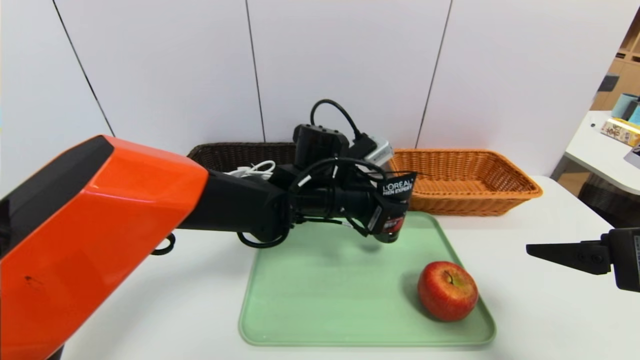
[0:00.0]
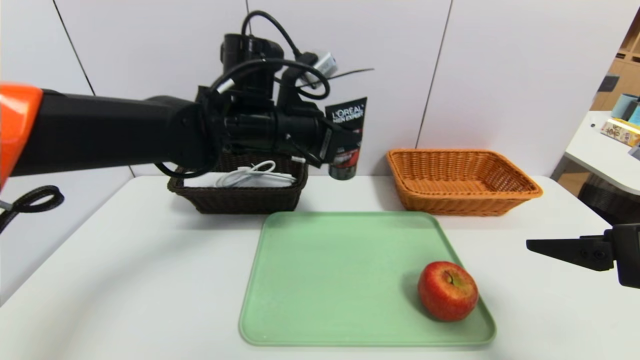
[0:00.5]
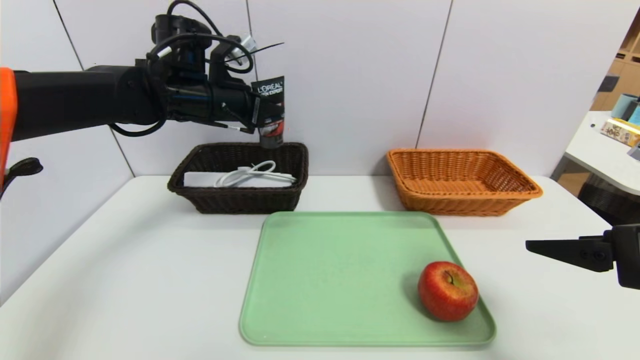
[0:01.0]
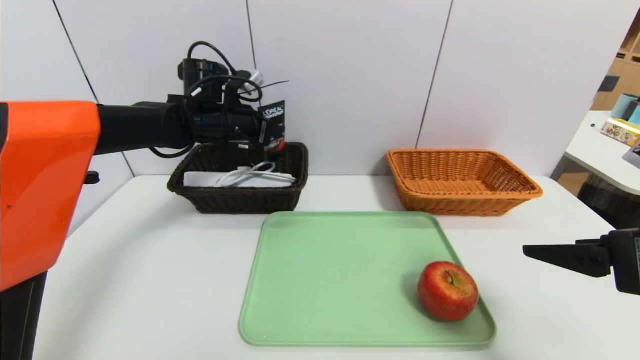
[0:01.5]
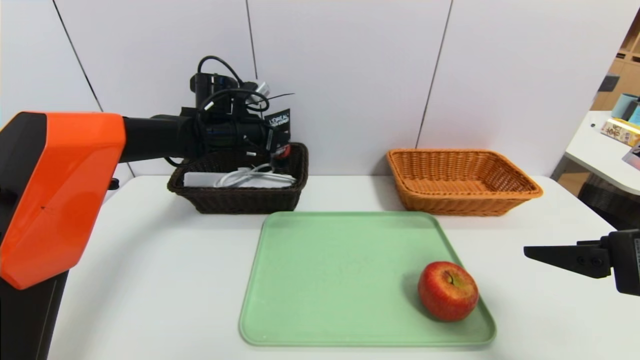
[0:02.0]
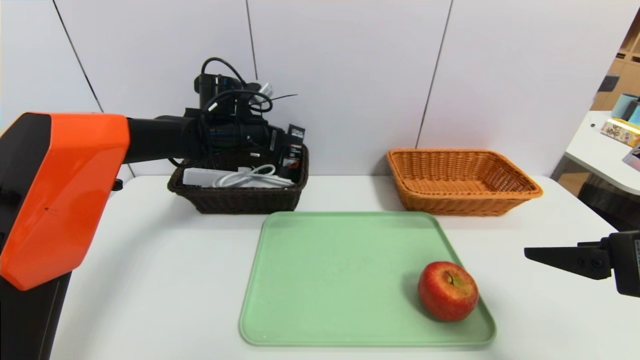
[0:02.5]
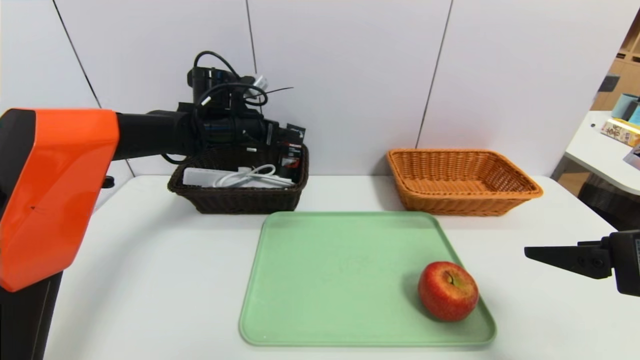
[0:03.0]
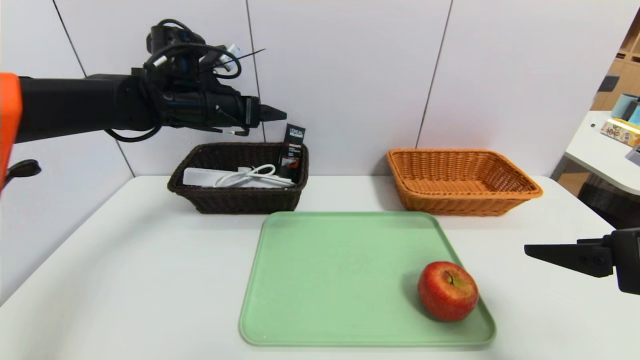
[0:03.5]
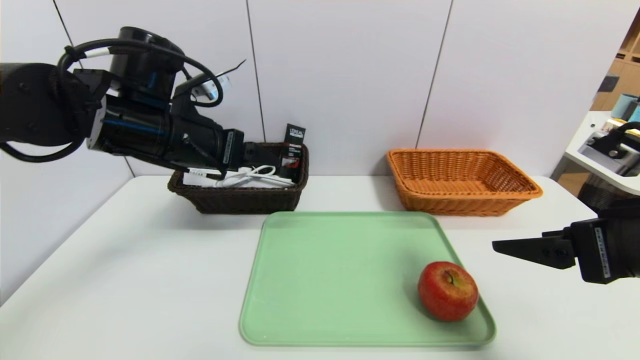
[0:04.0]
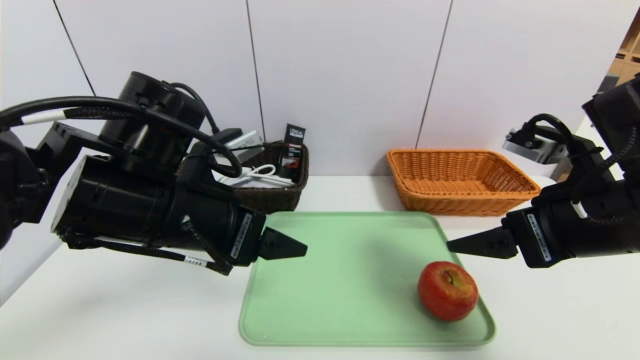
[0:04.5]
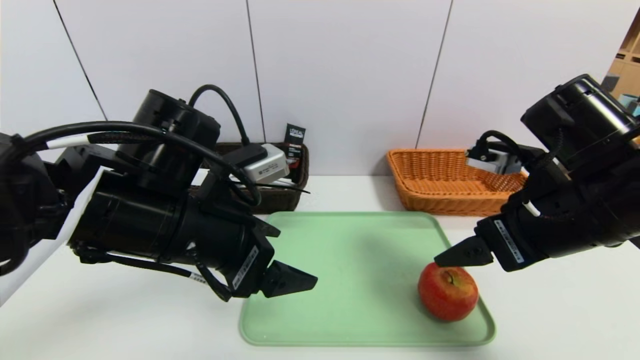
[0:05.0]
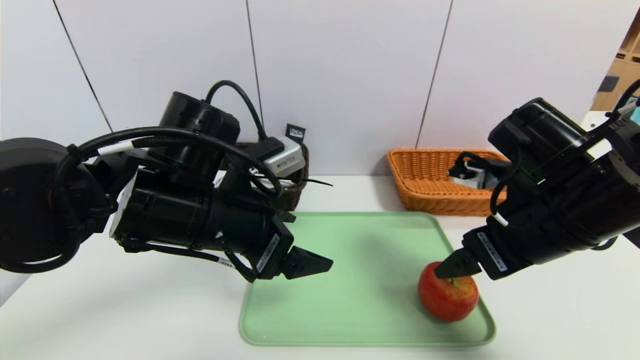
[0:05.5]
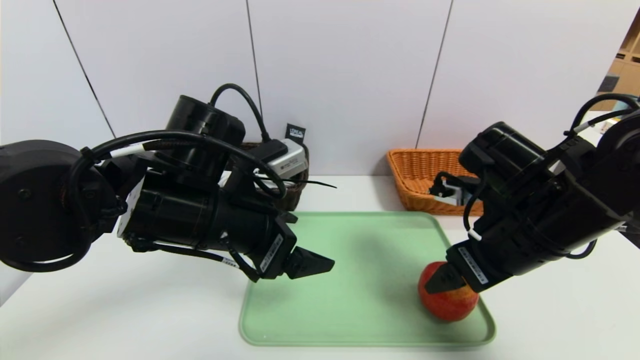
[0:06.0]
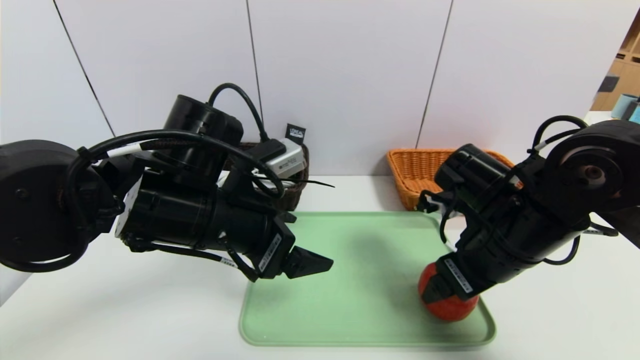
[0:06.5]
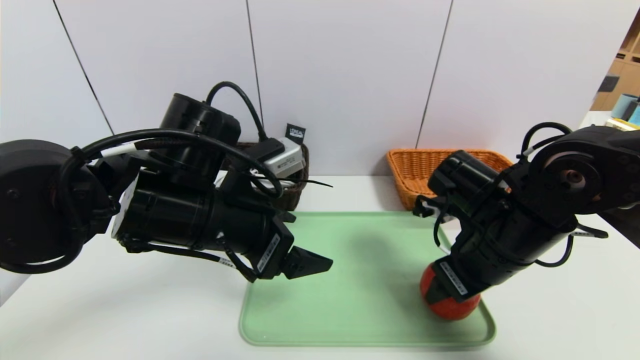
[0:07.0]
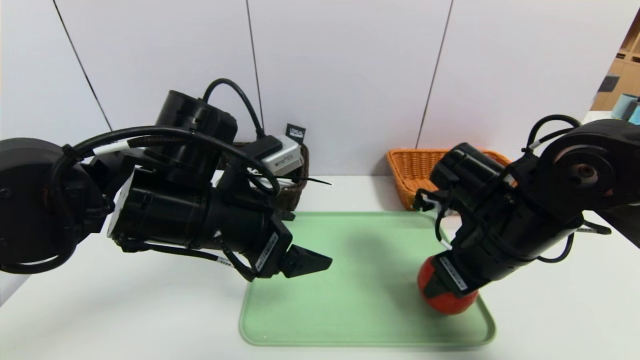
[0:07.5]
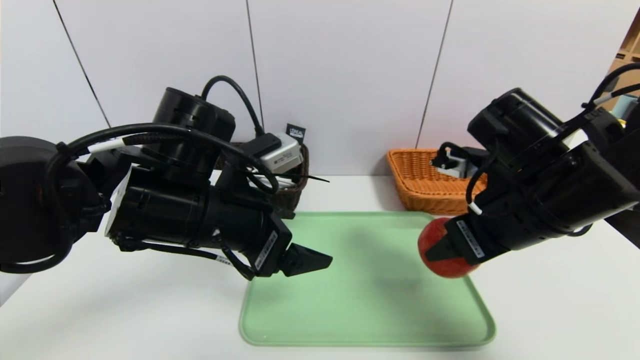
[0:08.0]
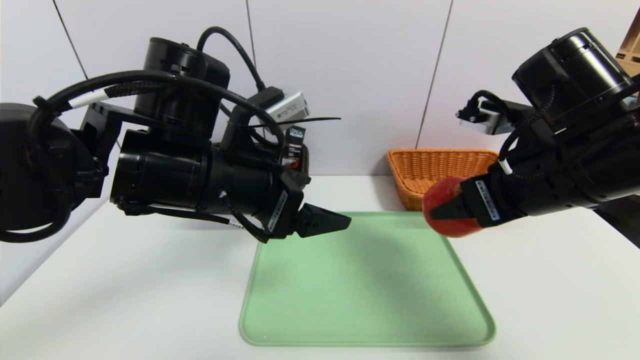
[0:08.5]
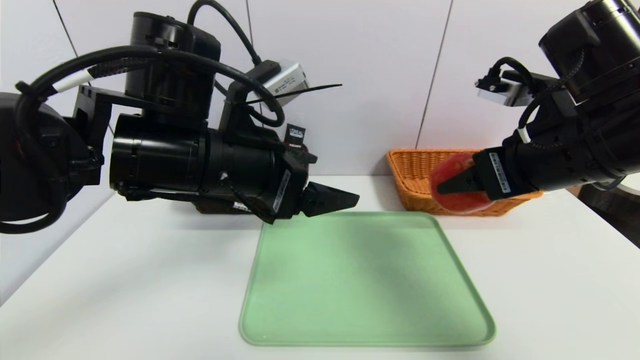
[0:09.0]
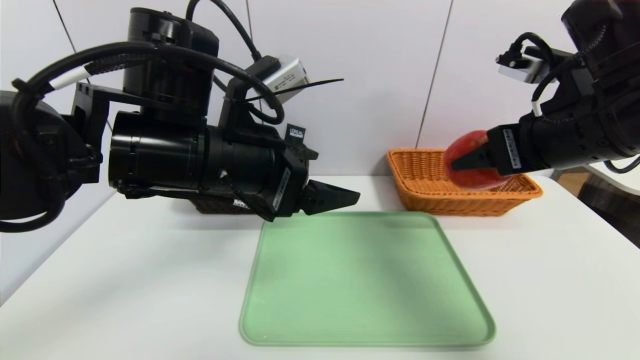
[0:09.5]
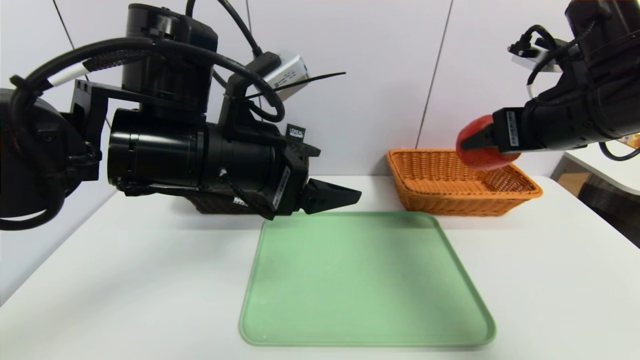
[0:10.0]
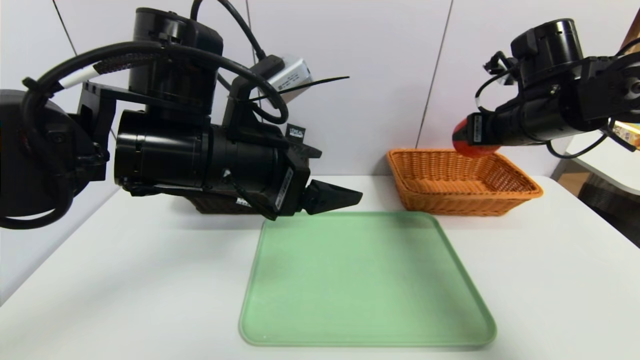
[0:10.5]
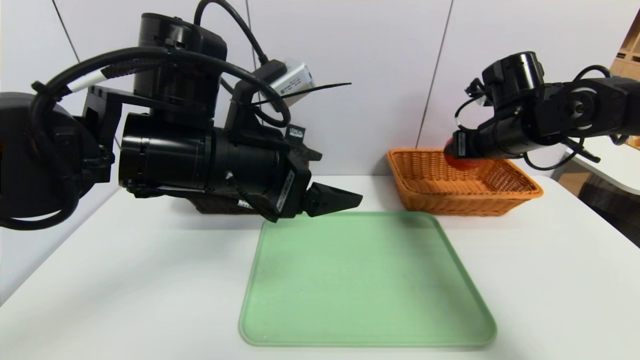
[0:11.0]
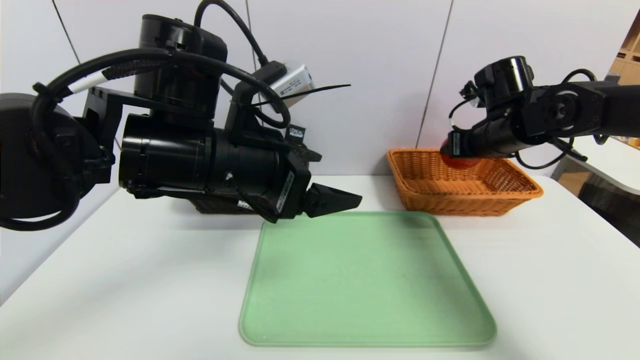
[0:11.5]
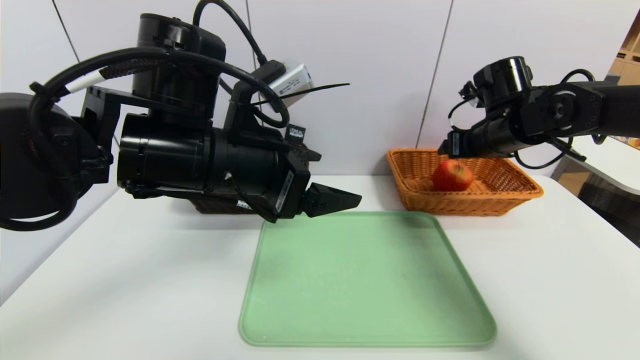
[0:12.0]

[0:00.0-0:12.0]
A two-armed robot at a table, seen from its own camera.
Task of the whole recording: place the food in the right basket with the right gripper, and place the non food items in the left basket with the left gripper.
Step, 0:00.0 to 0:03.0: Grasp the soft cleanser and put it in the left basket.
0:00.0 to 0:02.0: The left gripper shifts approximately 20 cm to the left and forward.
0:02.0 to 0:04.0: The left gripper shifts some 15 cm backward, and opens.
0:04.0 to 0:06.0: The right gripper is displaced to the left and forward by some 10 cm; the left gripper heads backward and to the right, covering approximately 10 cm.
0:06.0 to 0:08.0: The right gripper closes.
0:08.0 to 0:10.0: The left gripper travels upward by approximately 5 cm. The right gripper goes roughly 10 cm upward and to the right.
0:10.0 to 0:12.0: The right gripper shifts about 15 cm forward and downward, and opens up.

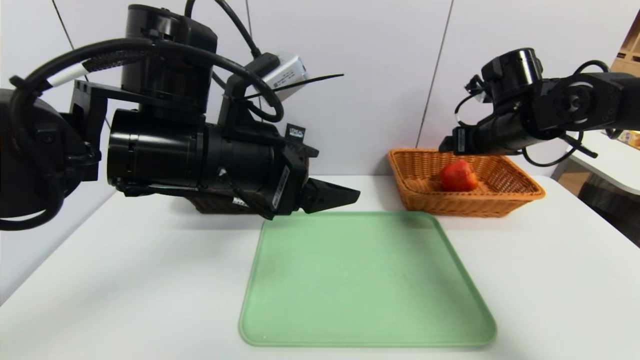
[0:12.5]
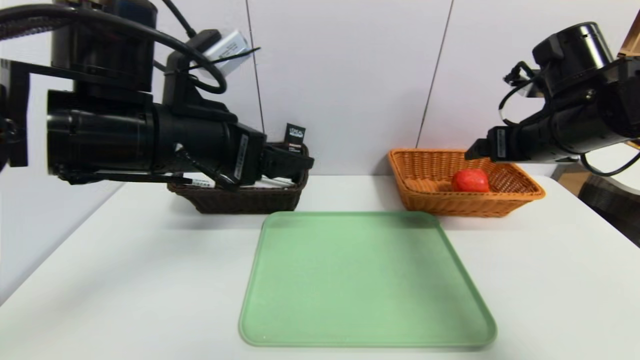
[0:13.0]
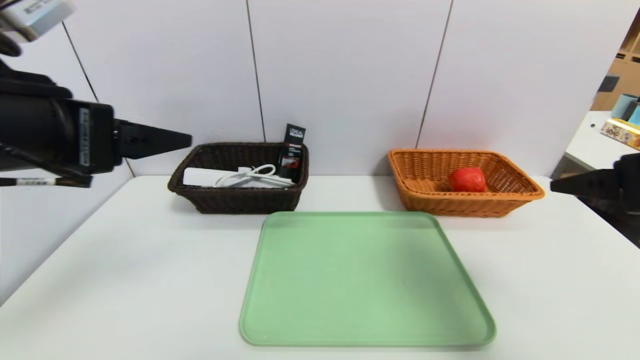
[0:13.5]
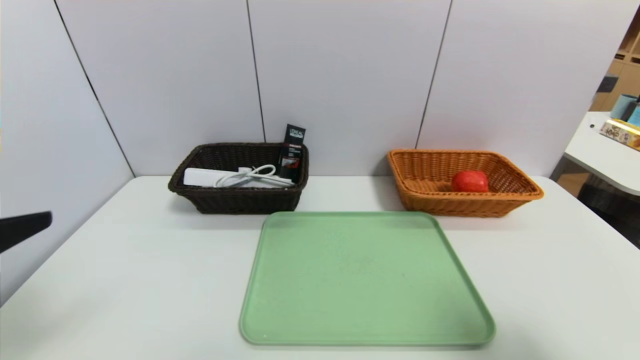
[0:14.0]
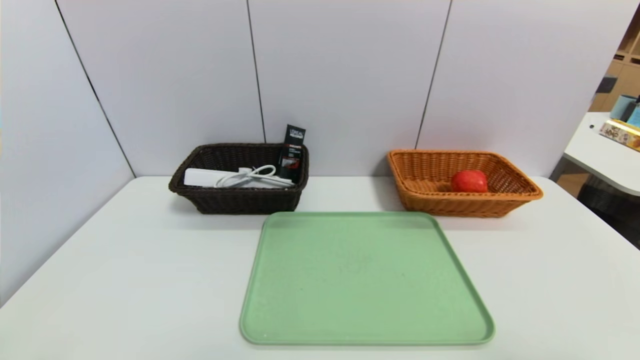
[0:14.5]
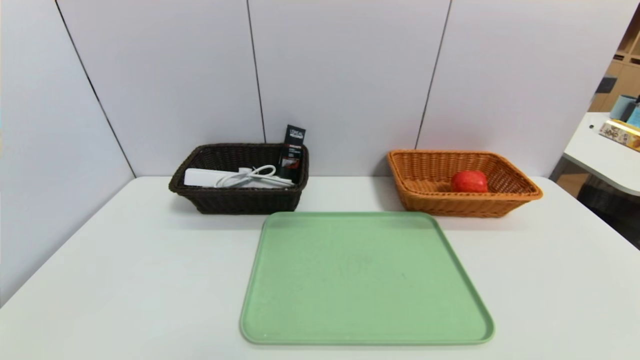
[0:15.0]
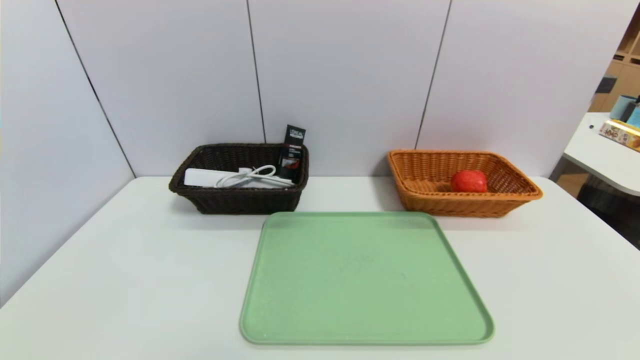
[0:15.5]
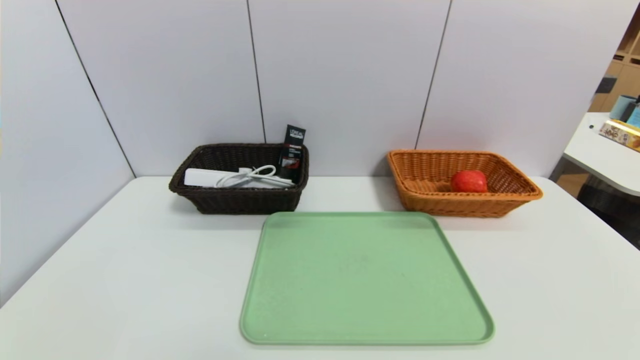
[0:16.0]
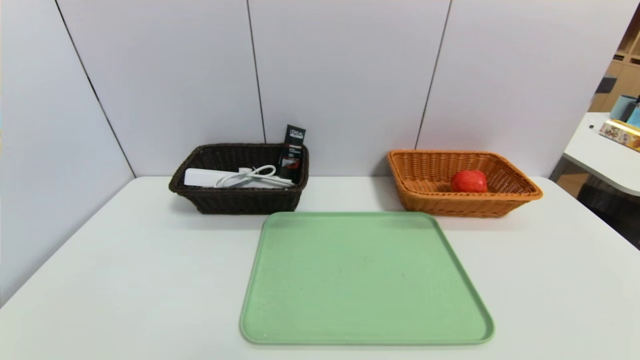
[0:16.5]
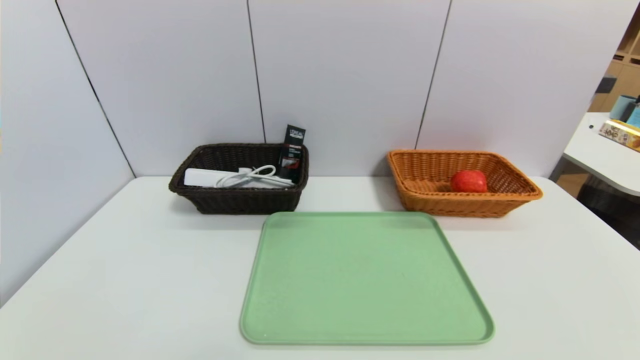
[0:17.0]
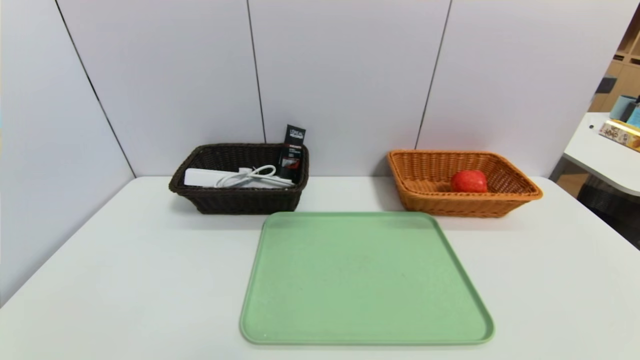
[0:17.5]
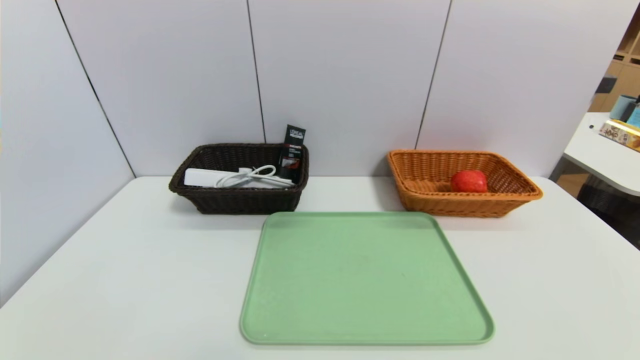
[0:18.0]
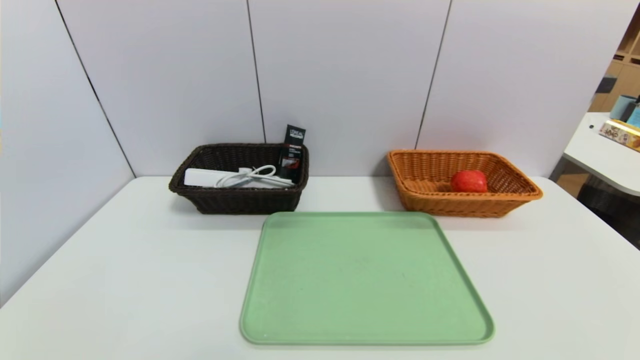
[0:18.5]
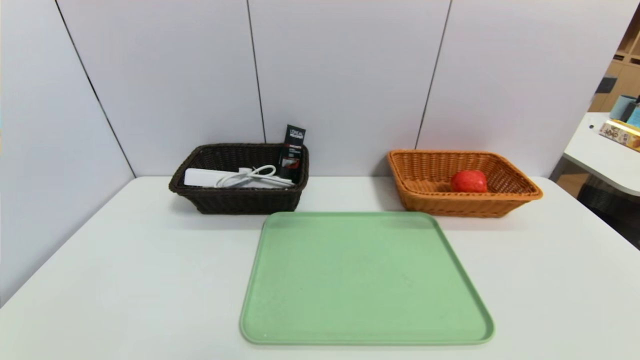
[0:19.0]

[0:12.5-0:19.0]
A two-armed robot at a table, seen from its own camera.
Task of the whole recording: place the food in the right basket with the right gripper, and place the non food items in the left basket with the left gripper.
0:12.5 to 0:14.5: The right gripper heads backward, covering roughly 40 cm; the left gripper heads backward and to the left, covering some 30 cm.
